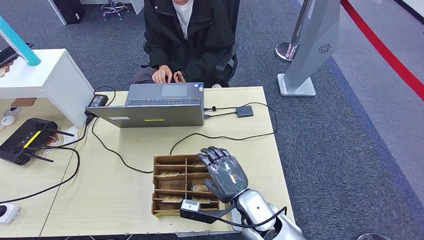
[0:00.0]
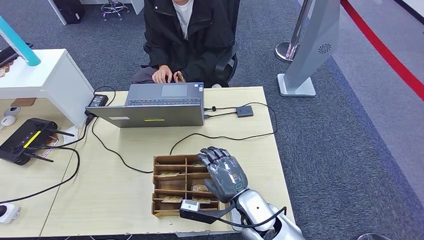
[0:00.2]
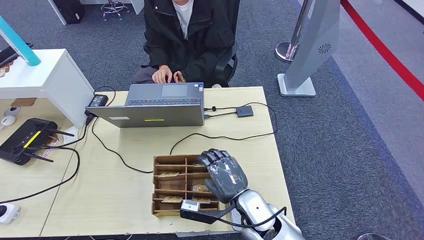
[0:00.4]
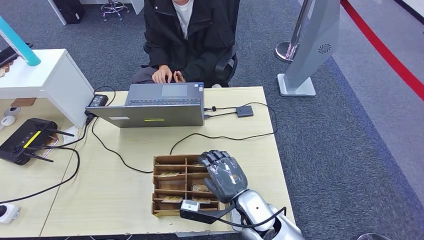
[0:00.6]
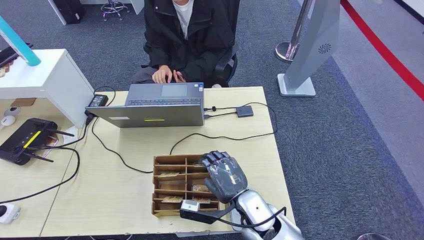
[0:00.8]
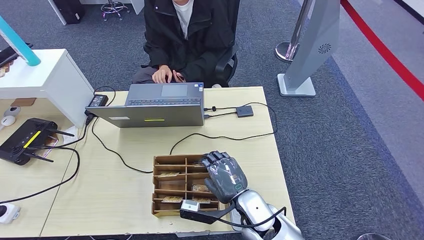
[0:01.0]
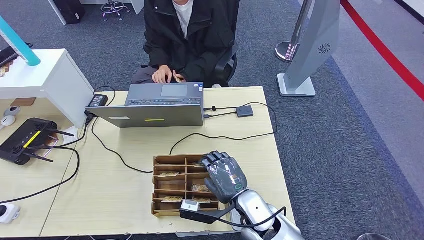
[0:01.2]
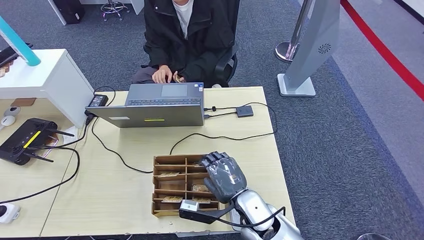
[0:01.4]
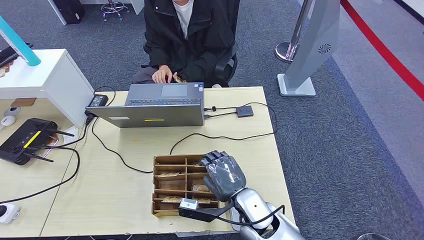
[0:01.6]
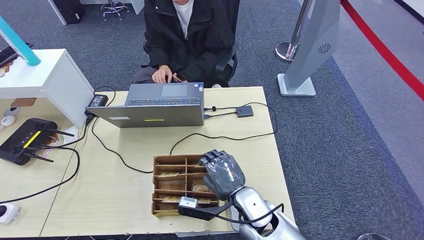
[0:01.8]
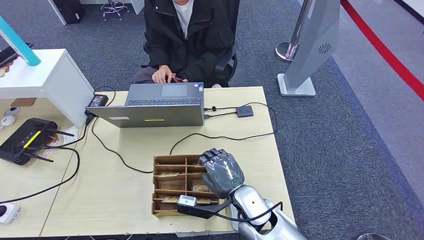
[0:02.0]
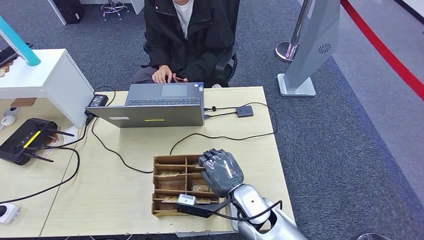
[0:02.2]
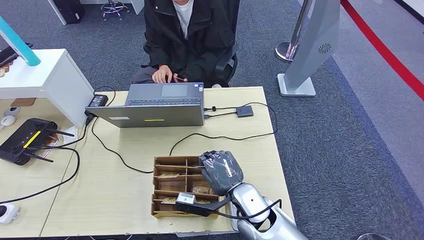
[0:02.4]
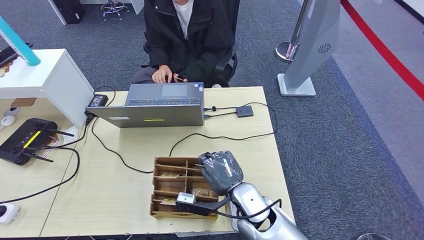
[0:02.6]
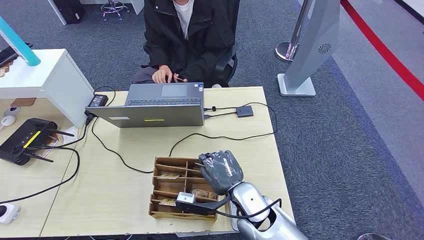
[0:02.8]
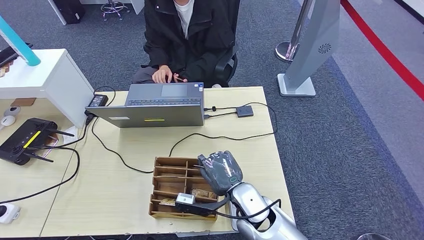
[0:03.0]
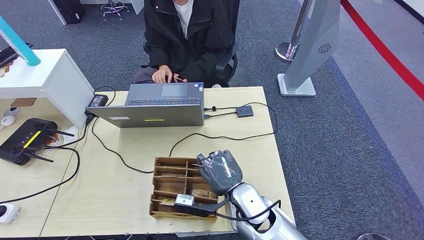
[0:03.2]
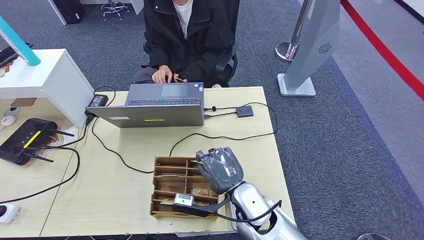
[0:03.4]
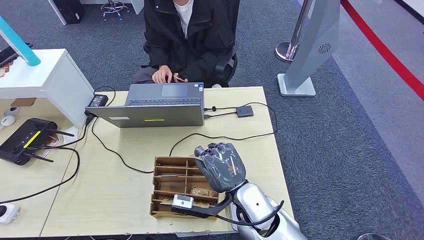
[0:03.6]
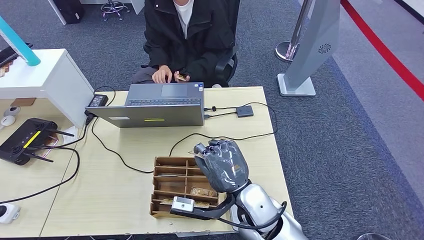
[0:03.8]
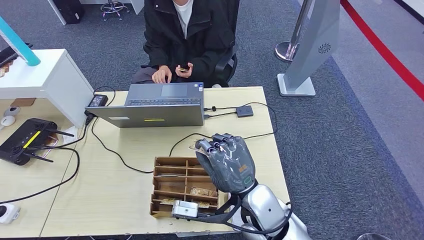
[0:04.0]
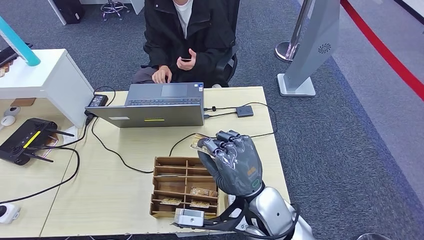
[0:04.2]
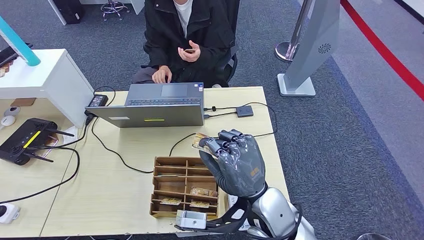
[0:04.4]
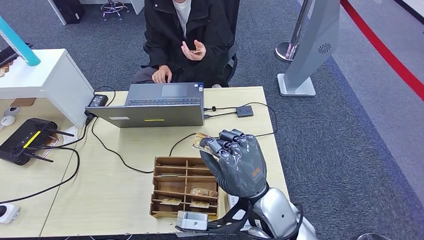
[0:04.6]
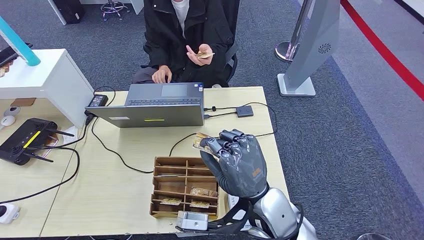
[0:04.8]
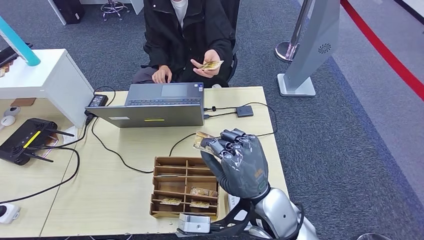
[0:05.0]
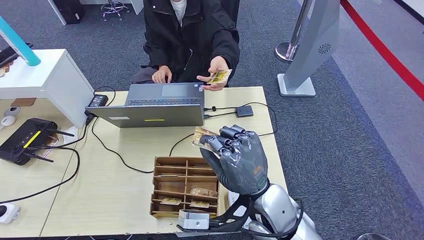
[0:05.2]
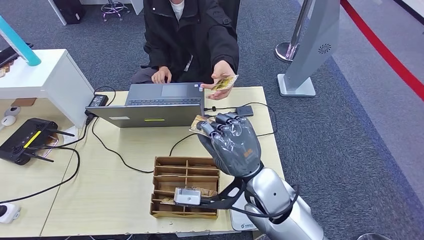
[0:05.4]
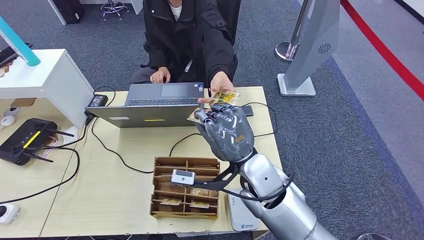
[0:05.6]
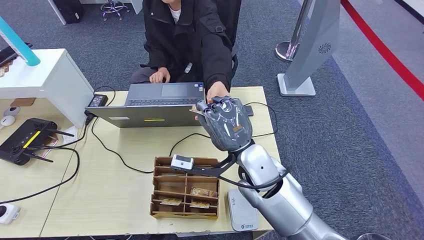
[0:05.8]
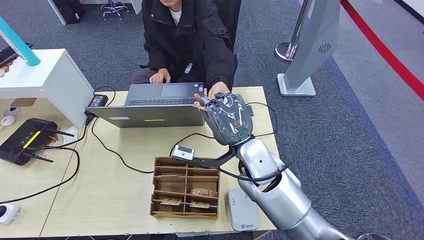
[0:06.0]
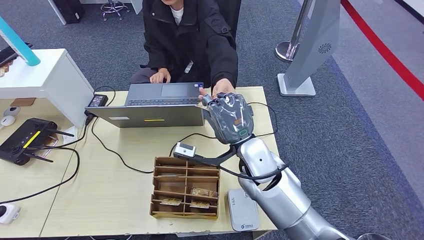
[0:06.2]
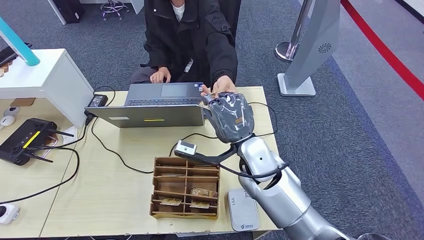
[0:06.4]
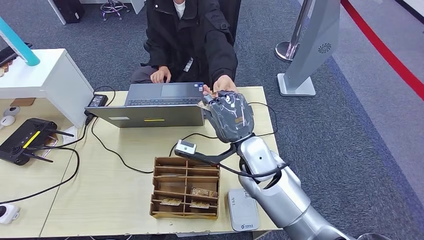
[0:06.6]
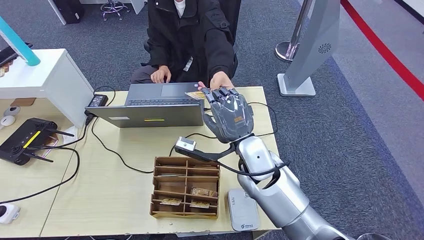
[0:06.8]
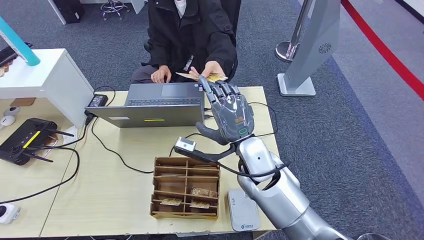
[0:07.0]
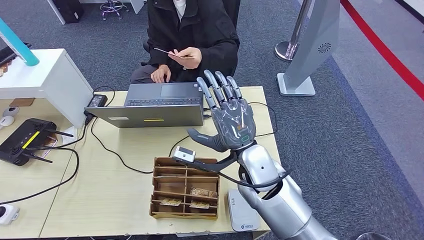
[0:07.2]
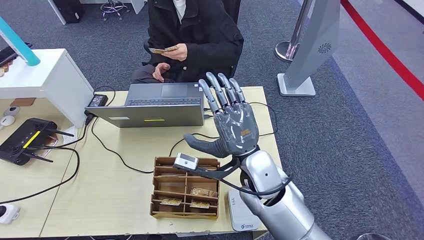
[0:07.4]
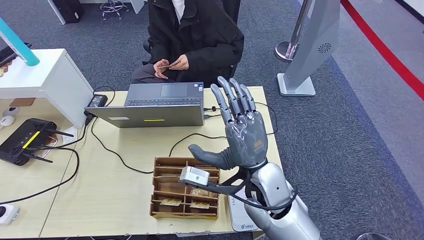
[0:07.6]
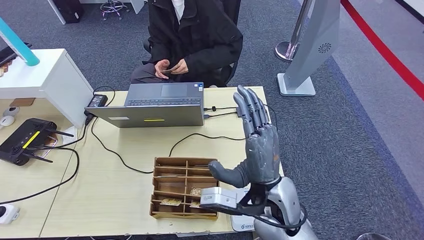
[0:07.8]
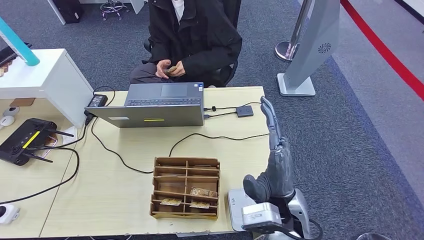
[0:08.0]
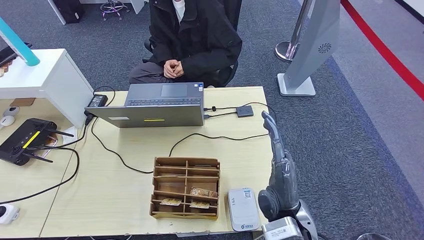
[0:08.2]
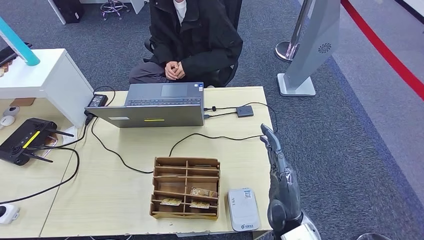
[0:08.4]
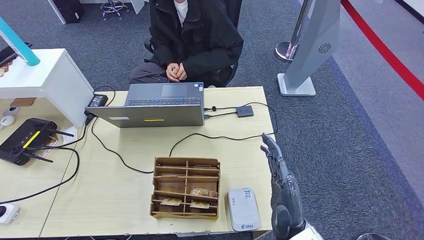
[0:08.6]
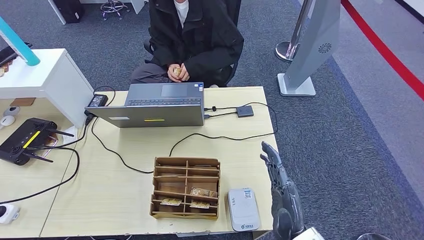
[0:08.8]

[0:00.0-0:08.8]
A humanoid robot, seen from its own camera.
Step, 0:00.0 to 0:04.0: Pick up the room key from the key card box.
Step, 0:04.2 to 0:08.8: Hand the room key to the person.
0:00.0 to 0:01.4: Both hands stay put.
0:01.4 to 0:03.0: There are only small adjustments of the hands.
0:03.0 to 0:04.4: The right hand goes about 10 cm upward.
0:04.4 to 0:05.8: The right hand shifts some 10 cm forward.
0:05.8 to 0:07.4: There are only small adjustments of the hands.
0:07.4 to 0:08.8: The right hand travels backward, downward and to the right by about 20 cm, while the left hand changes place by roughly 5 cm.
